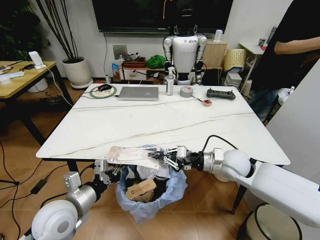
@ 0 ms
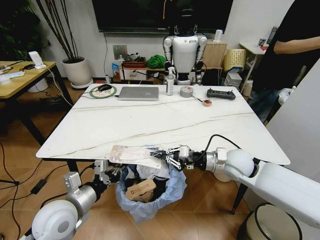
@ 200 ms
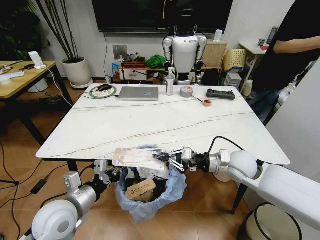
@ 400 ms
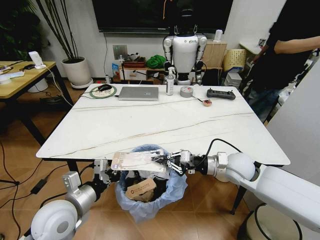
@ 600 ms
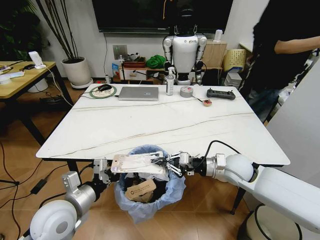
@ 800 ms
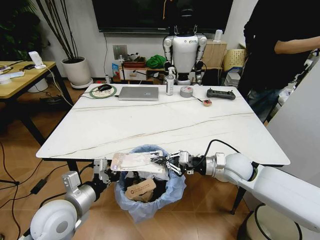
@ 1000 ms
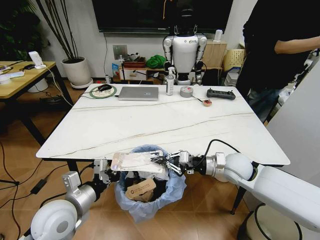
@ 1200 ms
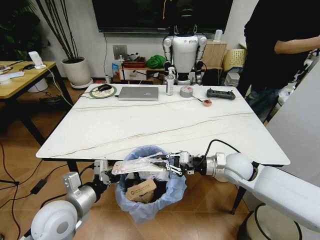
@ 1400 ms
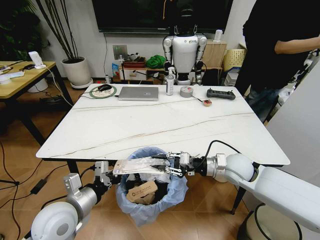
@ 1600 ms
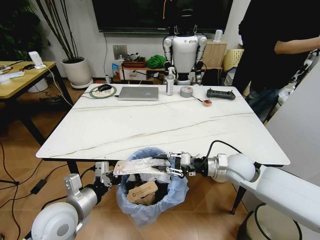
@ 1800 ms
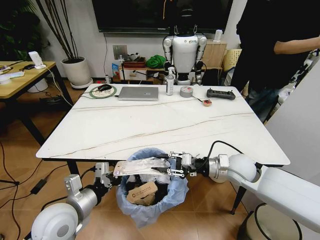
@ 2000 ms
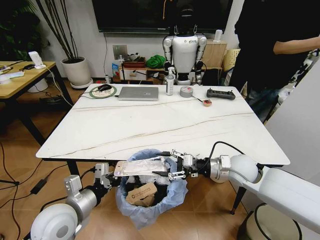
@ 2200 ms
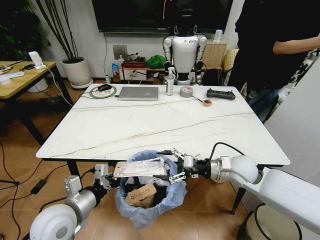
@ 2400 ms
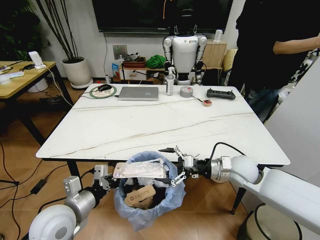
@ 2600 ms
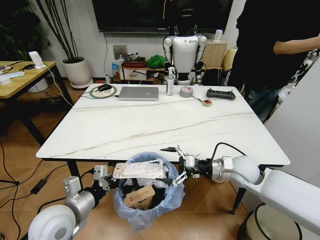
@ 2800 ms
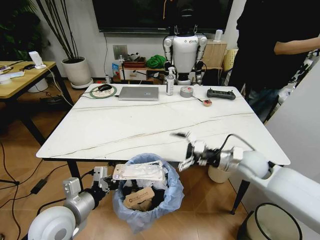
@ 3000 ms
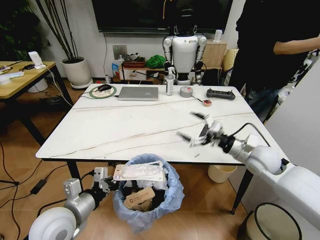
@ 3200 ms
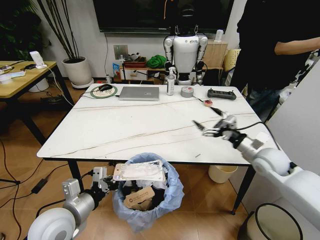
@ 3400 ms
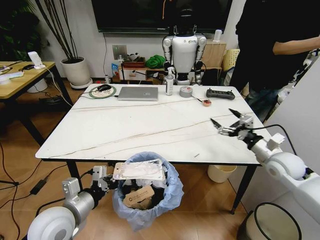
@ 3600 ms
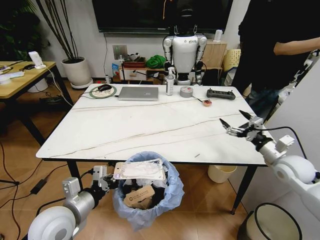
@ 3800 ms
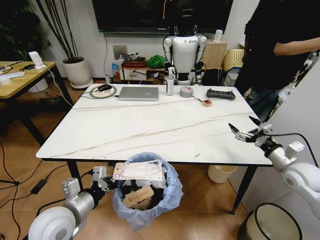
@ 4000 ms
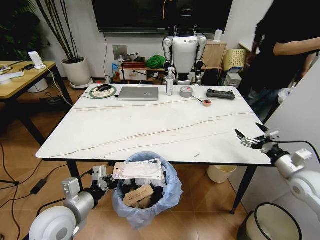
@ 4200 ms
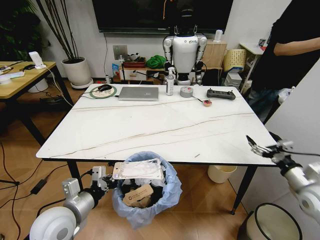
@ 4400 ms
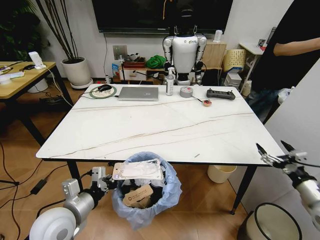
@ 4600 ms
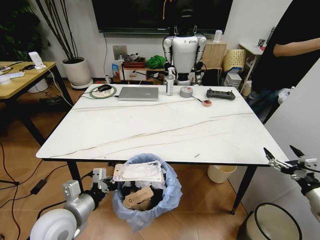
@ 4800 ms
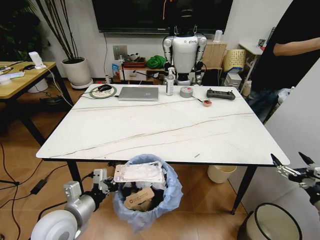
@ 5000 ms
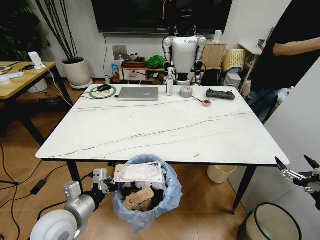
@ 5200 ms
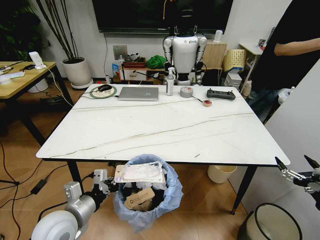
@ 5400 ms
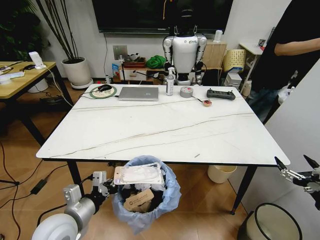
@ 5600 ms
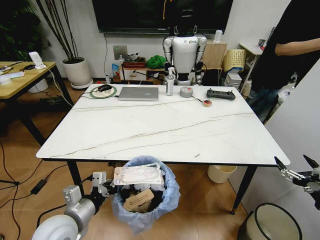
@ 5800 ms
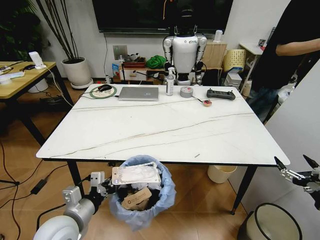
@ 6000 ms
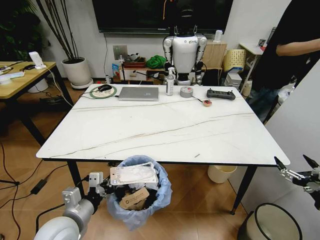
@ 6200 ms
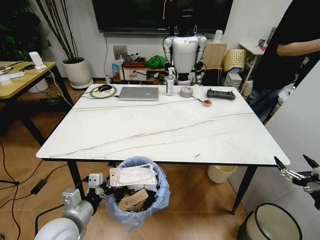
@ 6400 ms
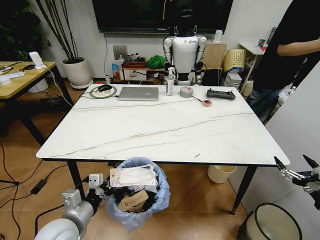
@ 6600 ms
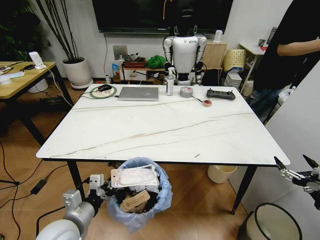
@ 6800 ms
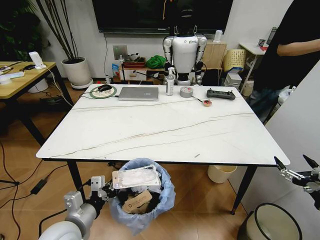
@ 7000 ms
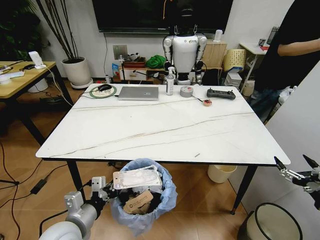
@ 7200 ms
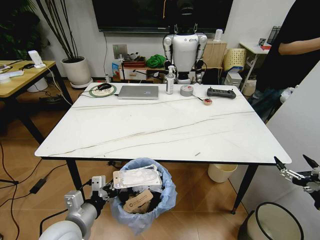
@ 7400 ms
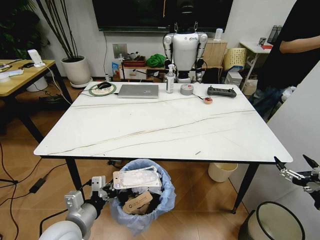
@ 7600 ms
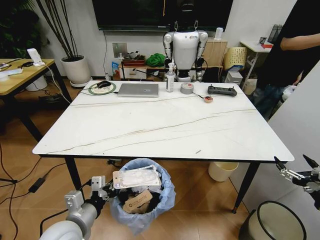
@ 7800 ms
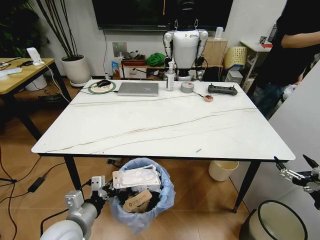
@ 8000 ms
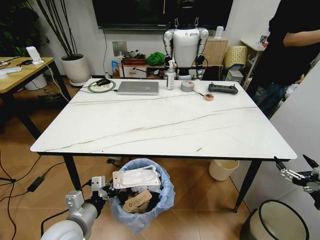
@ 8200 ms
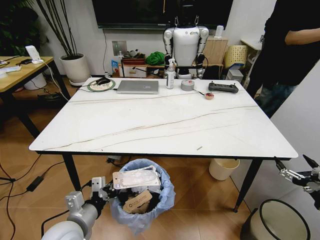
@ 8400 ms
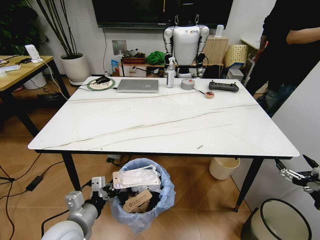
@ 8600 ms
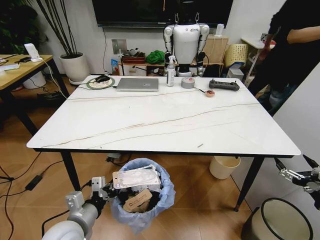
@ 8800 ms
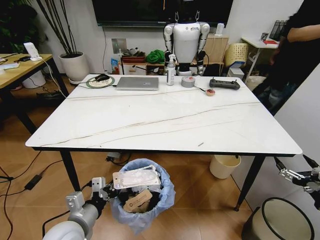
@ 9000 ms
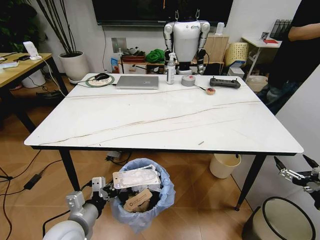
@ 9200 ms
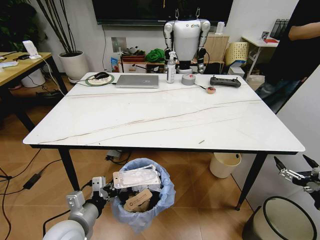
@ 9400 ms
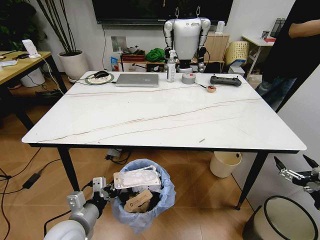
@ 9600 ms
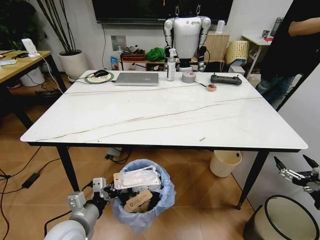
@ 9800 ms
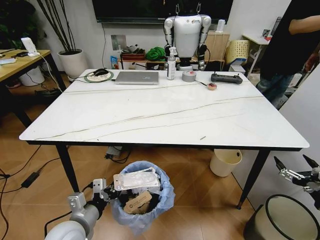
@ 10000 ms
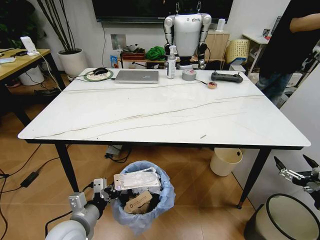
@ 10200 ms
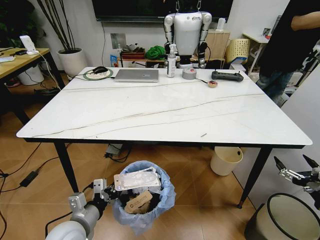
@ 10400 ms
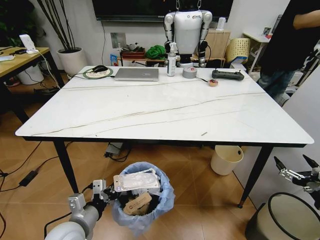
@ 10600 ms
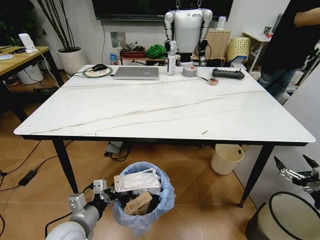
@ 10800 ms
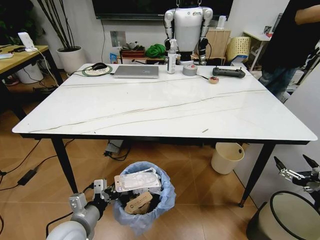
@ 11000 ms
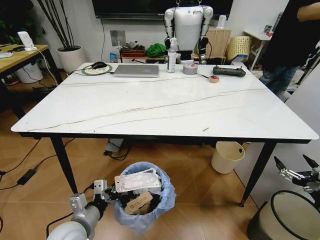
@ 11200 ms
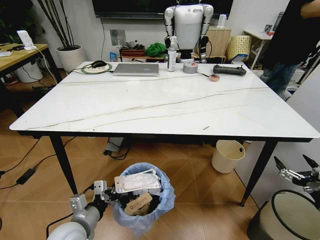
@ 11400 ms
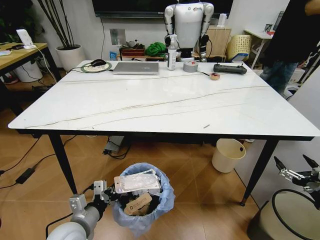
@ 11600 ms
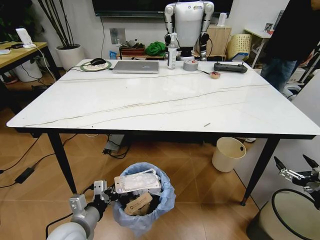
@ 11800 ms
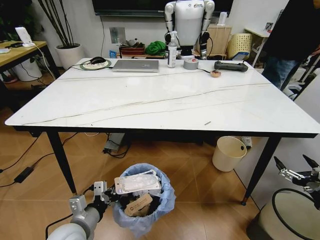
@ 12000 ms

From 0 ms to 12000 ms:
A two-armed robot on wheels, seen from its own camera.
Task of the whole recording: Pick up the trash bin and place the trash from the table into it.
From 0 ms to 1600 ms: The grippers move only a little.
From 1600 ms to 3000 ms: The right gripper opens up.
From 3000 ms to 4400 ms: The right gripper travels to the right and backward by approximately 20 cm.
From 4400 ms to 6000 ms: The right gripper goes about 10 cm backward.
From 6000 ms to 7600 ms: There are only small adjustments of the grippers.

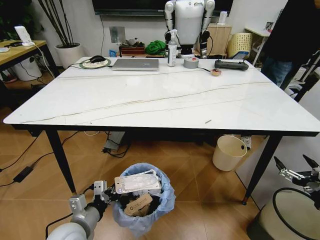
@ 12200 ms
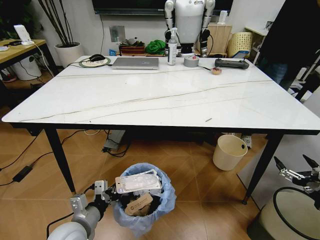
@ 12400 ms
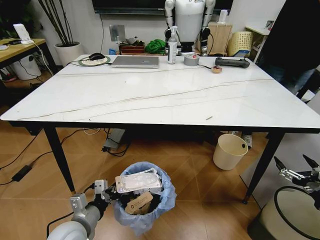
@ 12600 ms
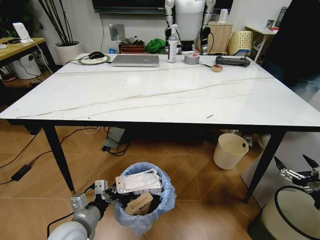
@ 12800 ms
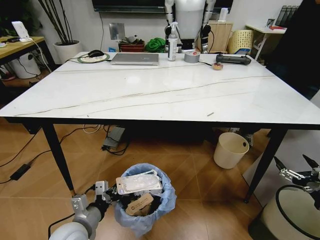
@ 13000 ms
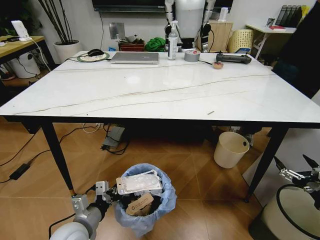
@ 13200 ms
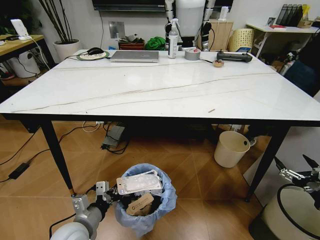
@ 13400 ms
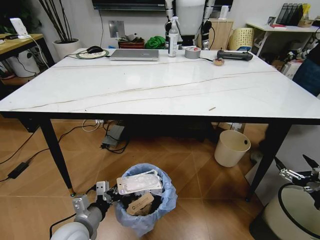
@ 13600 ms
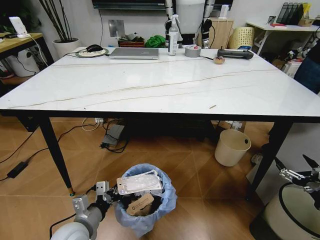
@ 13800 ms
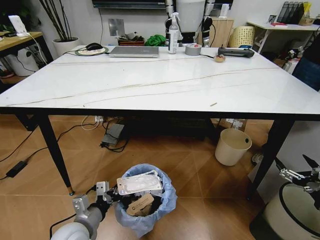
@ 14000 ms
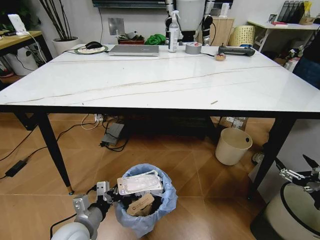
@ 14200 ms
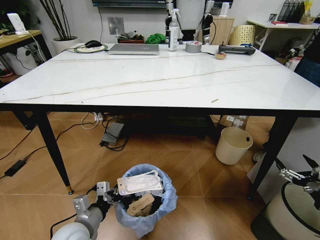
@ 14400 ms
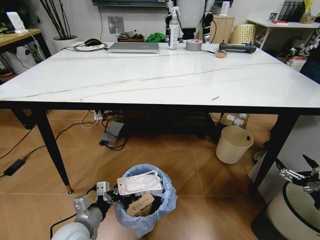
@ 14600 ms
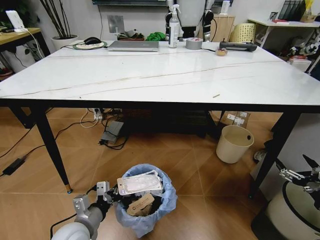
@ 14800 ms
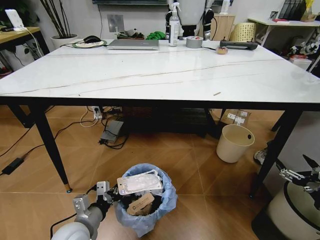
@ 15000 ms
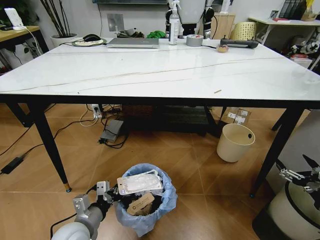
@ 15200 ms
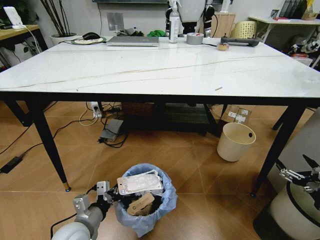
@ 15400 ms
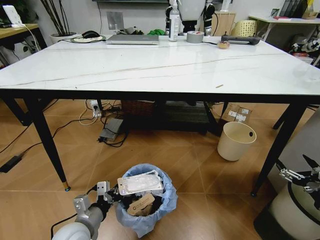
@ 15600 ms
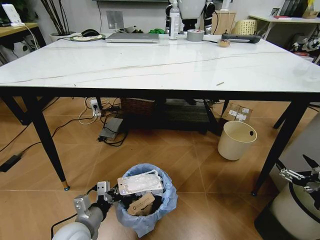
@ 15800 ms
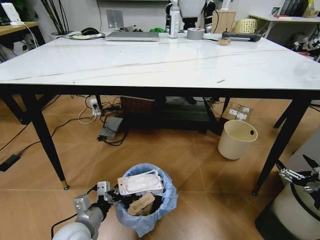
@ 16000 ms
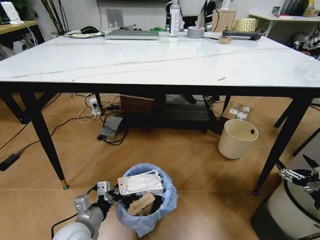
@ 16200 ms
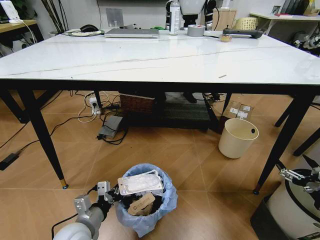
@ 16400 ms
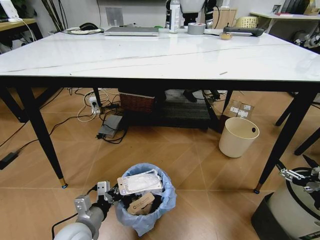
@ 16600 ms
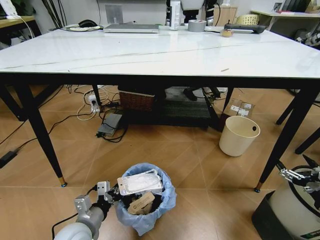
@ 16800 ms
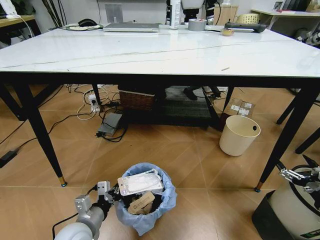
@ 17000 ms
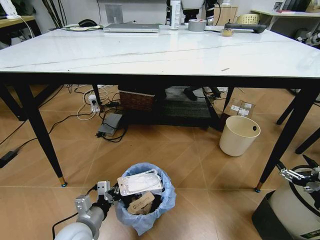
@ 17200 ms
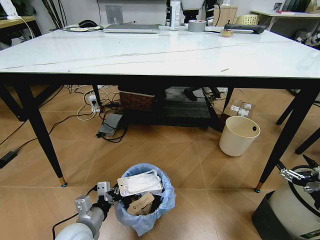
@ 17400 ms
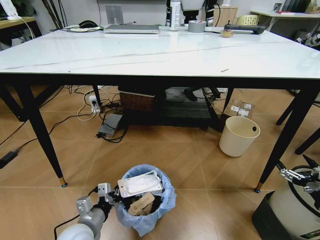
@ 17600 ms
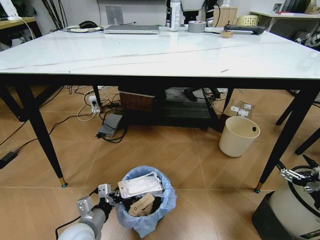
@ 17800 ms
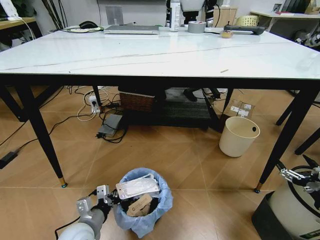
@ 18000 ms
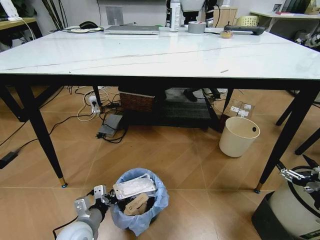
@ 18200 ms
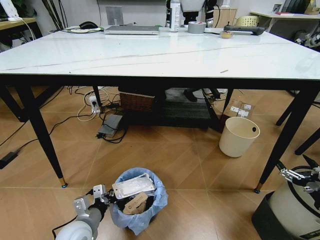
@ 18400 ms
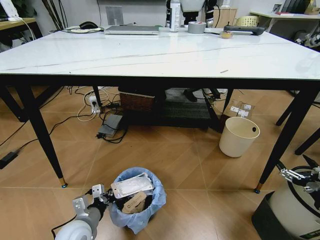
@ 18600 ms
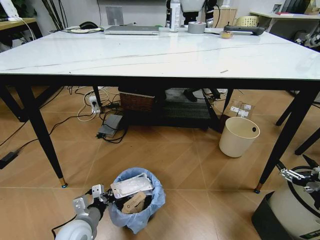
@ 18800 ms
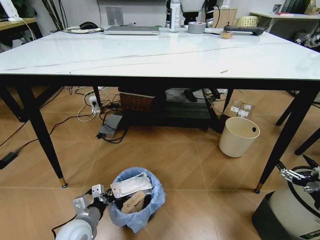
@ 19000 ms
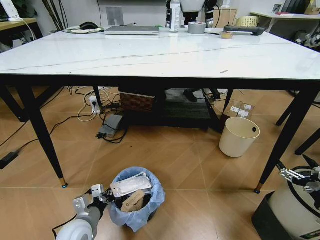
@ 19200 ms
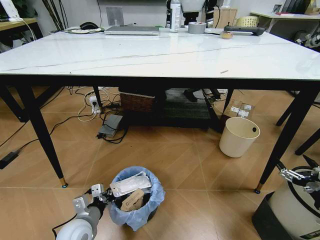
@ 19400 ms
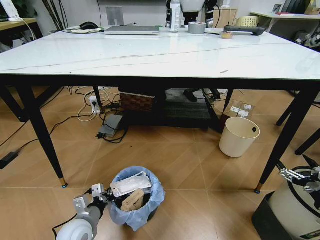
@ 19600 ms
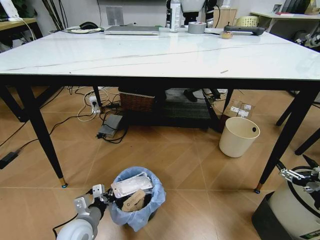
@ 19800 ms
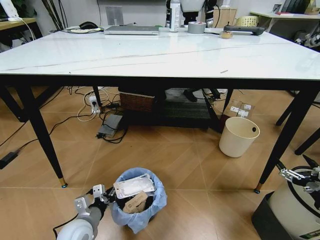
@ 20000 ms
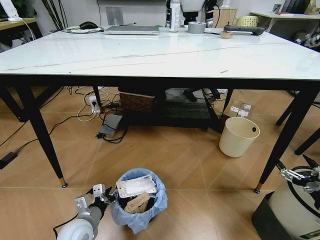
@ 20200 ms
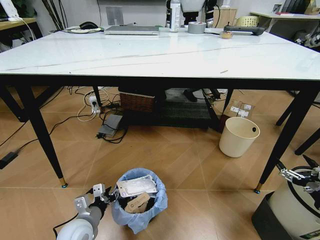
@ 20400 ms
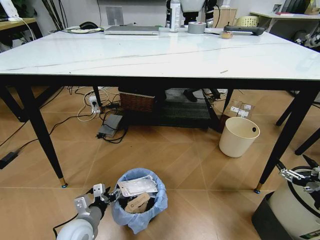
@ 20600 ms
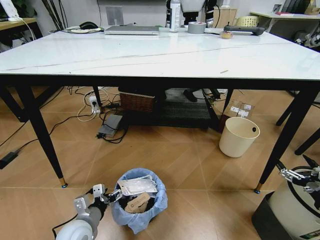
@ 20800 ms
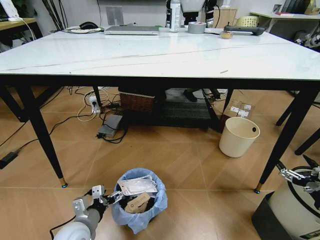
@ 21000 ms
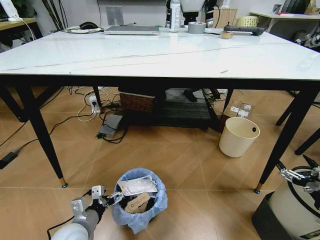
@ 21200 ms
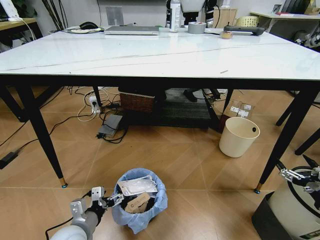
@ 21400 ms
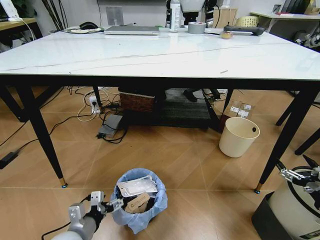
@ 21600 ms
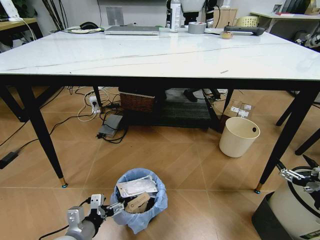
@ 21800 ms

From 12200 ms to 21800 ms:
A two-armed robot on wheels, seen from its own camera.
Task of the whole recording: Pick up the trash bin and place the trash from the table into it.
From 17000 ms to 18600 ms: The grippers move only a little.
From 18600 ms to 20200 ms: The left gripper opens.
From 20200 ms to 21800 ms: The left gripper is displaced backward and upward by some 5 cm, and opens.

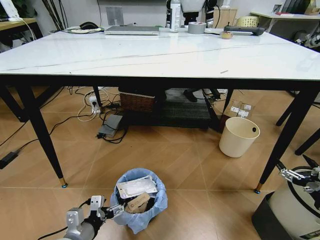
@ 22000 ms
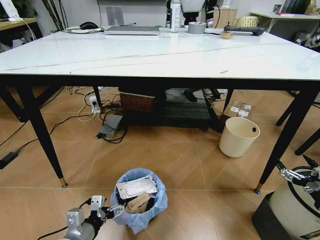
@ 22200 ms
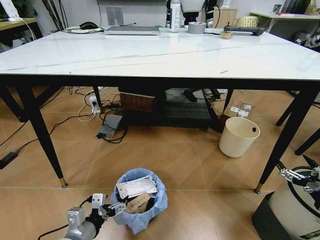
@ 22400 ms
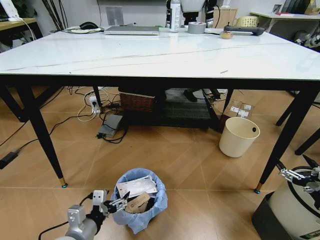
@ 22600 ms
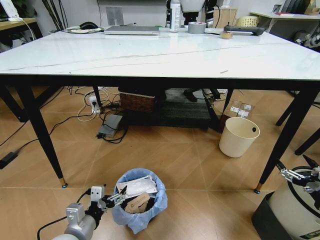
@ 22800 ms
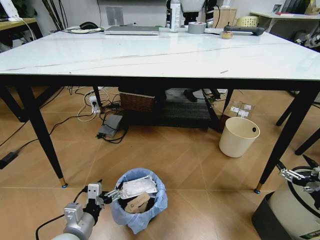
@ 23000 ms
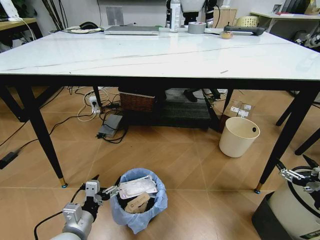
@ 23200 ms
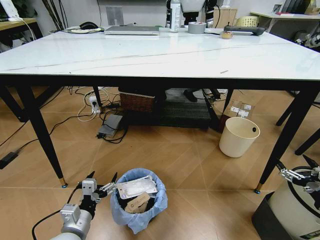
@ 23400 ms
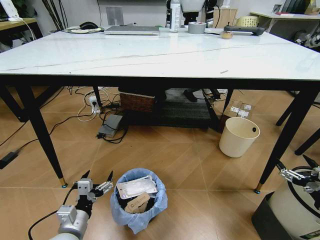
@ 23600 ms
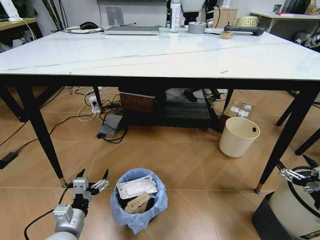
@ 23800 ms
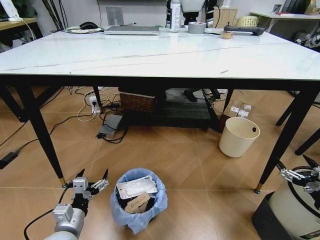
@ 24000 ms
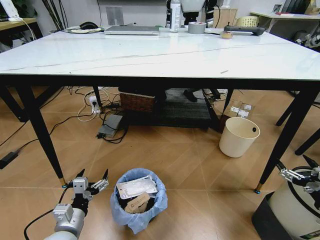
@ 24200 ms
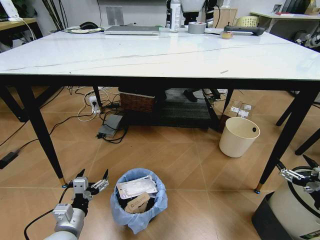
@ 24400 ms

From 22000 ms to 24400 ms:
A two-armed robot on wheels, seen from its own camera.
Task of the whole recording: Pick up the trash bin and place the trash from the table into it.
From 23200 ms to 24400 ms: The grippers make only small movements.
